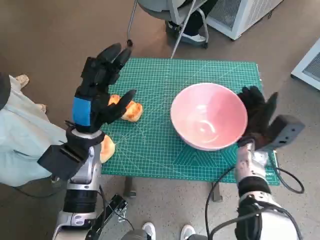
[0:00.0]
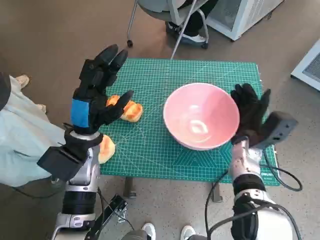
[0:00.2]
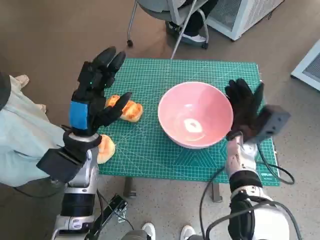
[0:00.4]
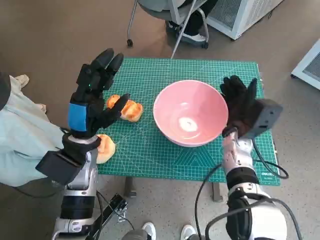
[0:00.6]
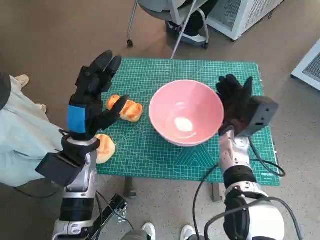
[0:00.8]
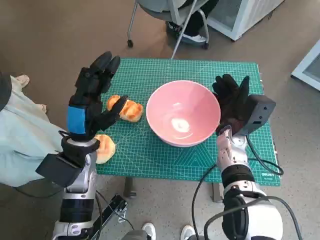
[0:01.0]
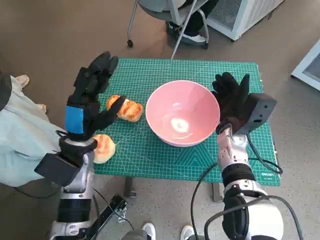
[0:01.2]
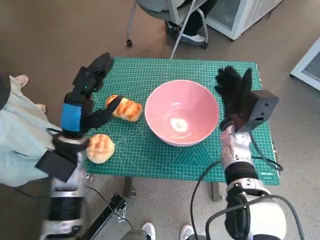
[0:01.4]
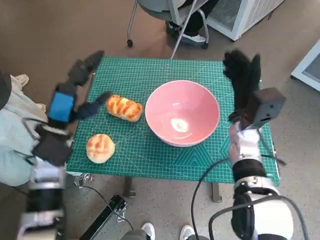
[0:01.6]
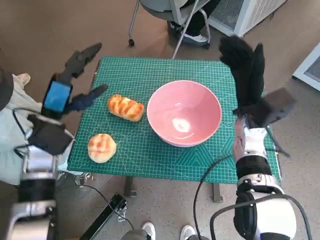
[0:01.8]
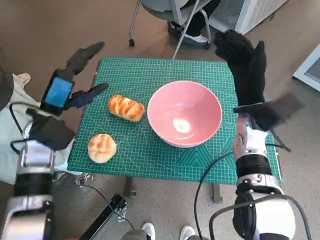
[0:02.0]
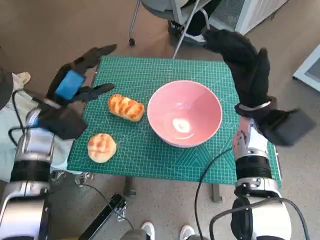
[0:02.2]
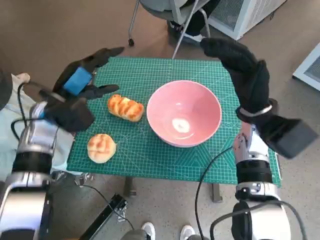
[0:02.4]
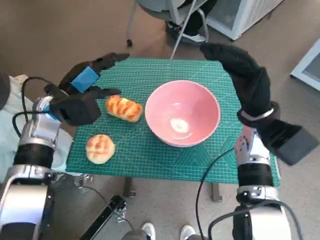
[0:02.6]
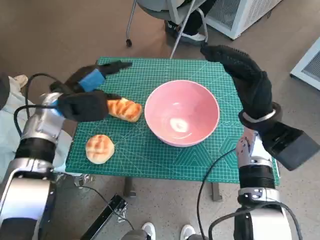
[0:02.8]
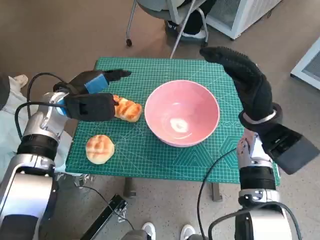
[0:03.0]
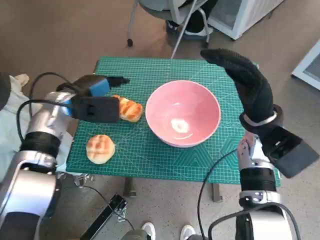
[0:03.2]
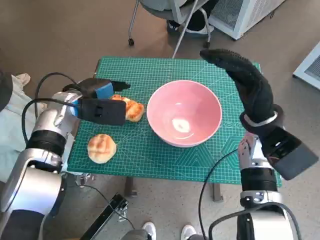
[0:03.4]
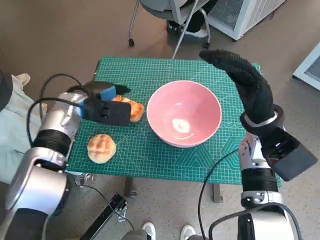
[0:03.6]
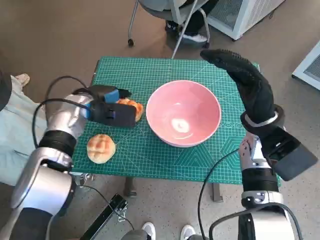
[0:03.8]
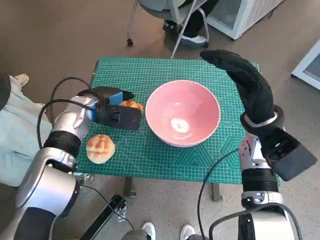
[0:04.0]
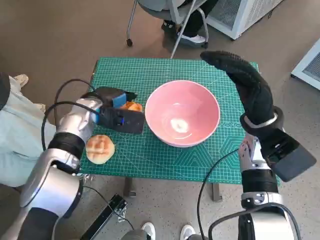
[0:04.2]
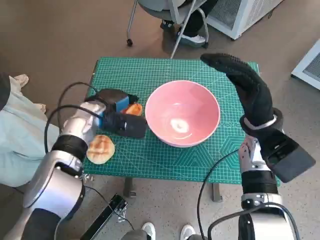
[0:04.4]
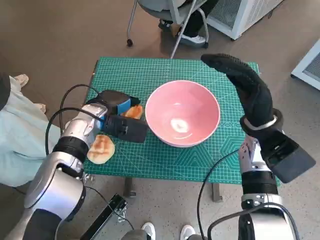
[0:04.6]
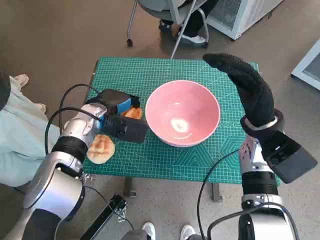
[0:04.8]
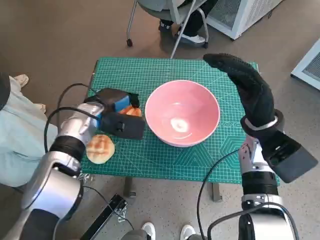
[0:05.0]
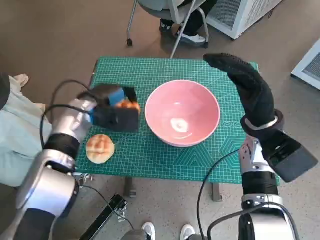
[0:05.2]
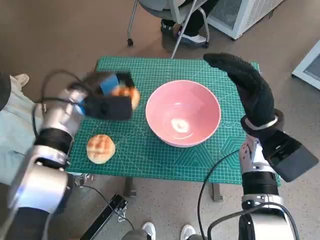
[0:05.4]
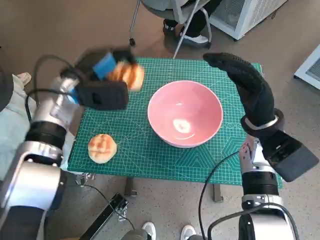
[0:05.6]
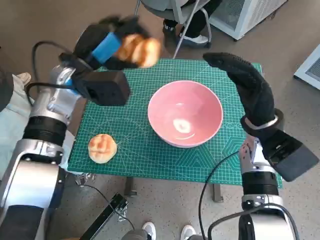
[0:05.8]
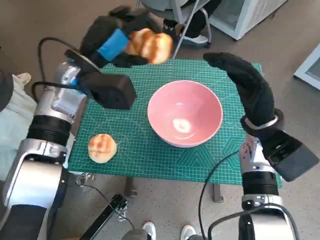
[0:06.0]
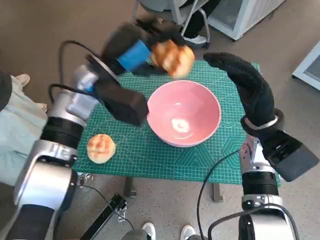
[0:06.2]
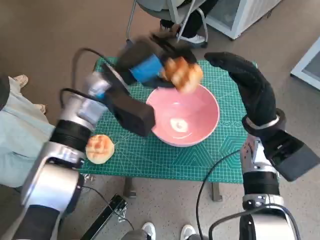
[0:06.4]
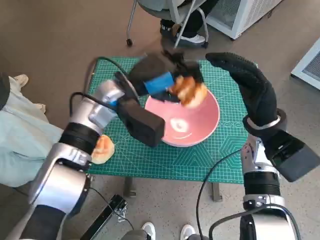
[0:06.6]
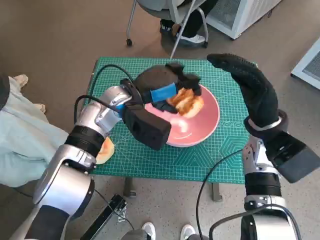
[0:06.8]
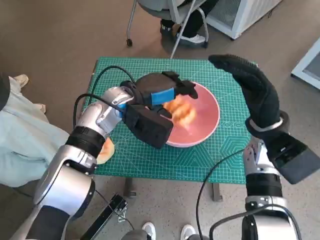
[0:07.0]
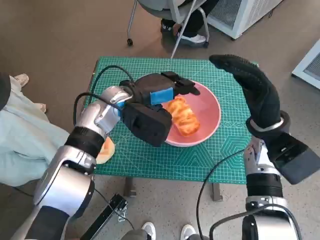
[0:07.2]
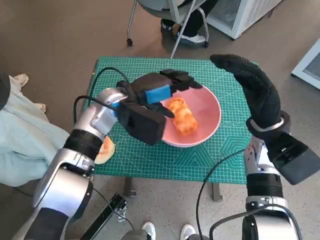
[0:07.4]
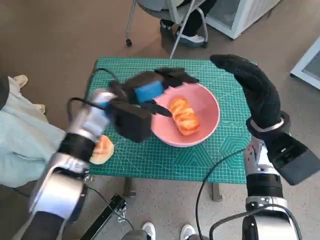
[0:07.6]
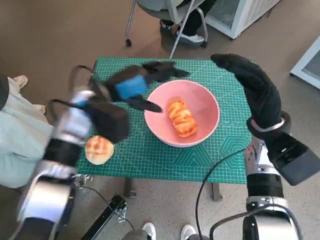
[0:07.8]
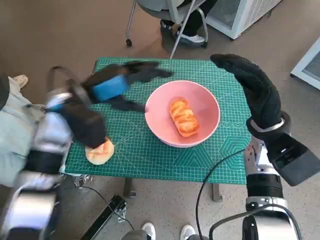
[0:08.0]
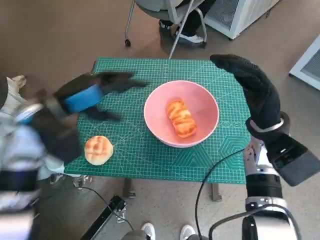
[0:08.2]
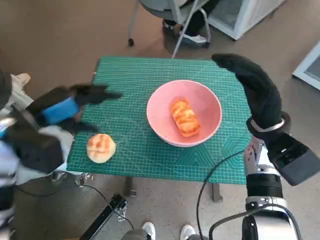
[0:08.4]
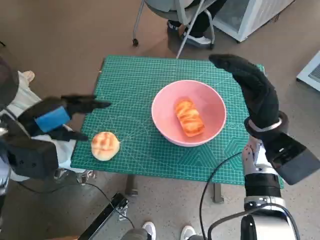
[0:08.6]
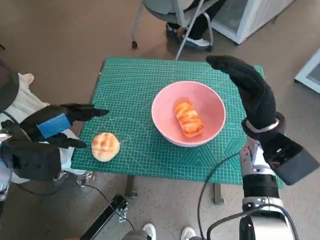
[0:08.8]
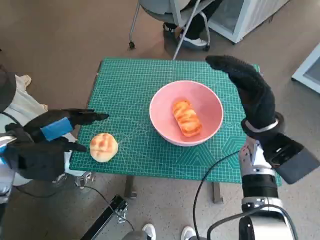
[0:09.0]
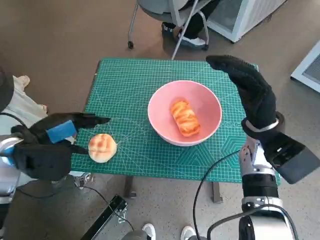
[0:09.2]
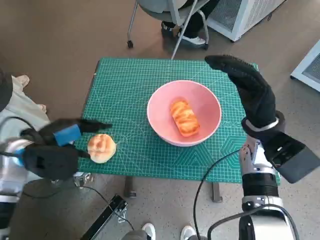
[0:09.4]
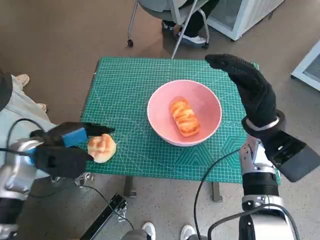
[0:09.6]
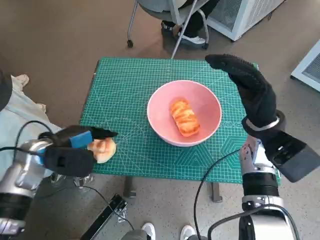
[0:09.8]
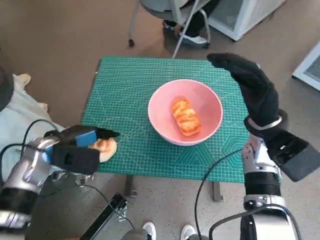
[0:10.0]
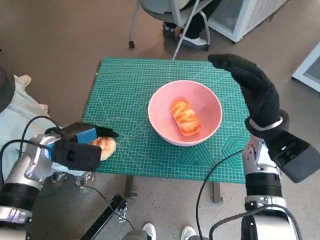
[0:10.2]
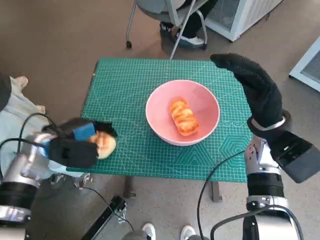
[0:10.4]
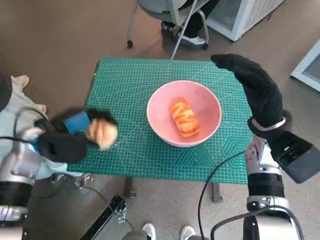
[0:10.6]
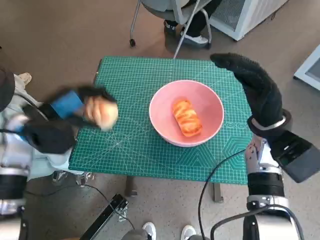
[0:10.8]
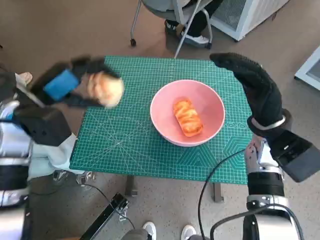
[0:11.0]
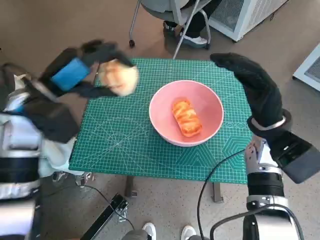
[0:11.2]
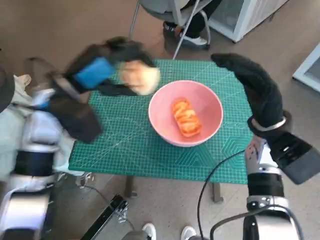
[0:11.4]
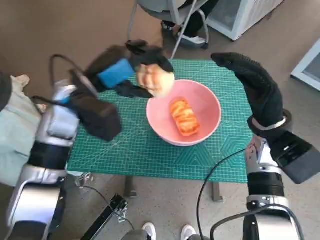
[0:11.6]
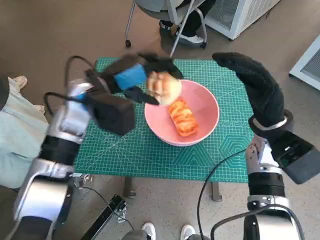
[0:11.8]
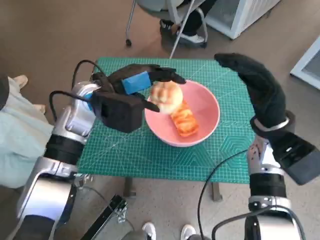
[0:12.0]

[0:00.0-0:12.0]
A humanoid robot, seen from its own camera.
Task of the whole recording: Push the bowl to the center of the table and put the bread into the bowl.
Step, 0:01.6 to 0:04.8: Grasp the long bread with left hand.
Step, 0:05.0 to 0:07.0: Place the long bread in pink bowl with left hand.
Step, 0:07.2 to 0:10.2: Grasp the round bread with left hand.
0:00.0 to 0:01.6: The right hand travels upward by about 5 cm, while the left hand travels to the left by approximately 5 cm.
0:01.6 to 0:03.0: The left hand heads forward, covering about 10 cm. Meanwhile the right hand shifts approximately 5 cm upward.
0:03.0 to 0:04.4: The left hand goes about 5 cm to the right.
0:04.4 to 0:06.0: The left hand is displaced upward by some 10 cm.
0:06.0 to 0:07.6: The left hand goes roughly 5 cm downward.
0:07.6 to 0:09.0: The left hand shifts some 20 cm to the left and backward.
0:09.0 to 0:10.4: The left hand goes approximately 5 cm downward.
0:10.4 to 0:12.0: The left hand goes approximately 15 cm to the right, upward and forward.

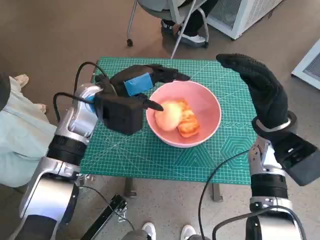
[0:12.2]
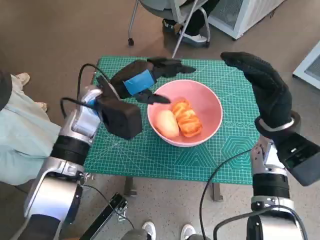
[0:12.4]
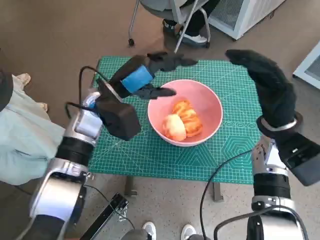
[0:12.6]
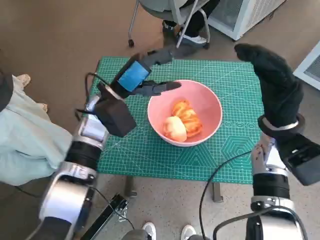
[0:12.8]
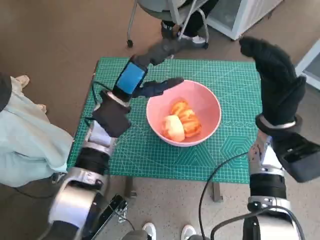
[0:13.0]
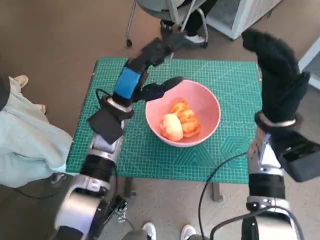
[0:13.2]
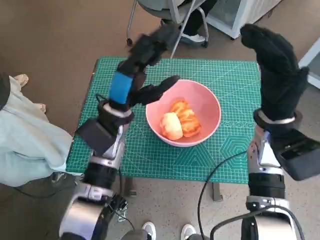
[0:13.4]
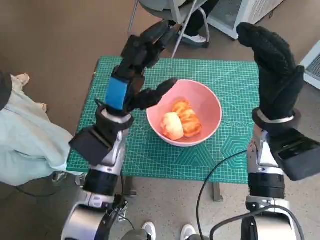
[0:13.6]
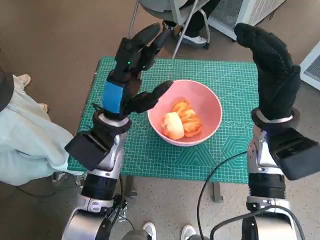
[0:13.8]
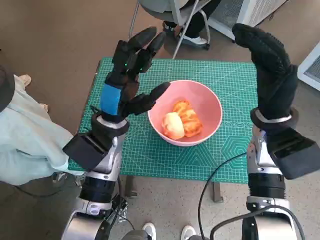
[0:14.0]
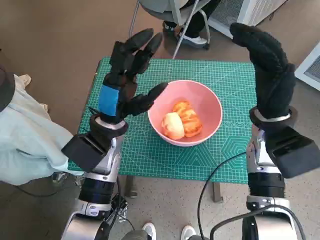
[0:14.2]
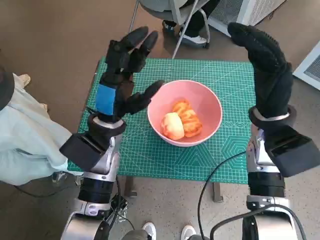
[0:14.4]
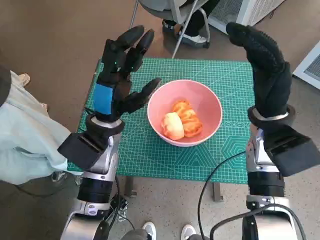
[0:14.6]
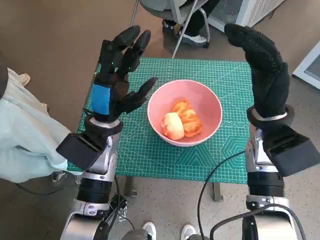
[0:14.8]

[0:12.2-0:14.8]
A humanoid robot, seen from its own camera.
Task of the whole recording: Push the bowl to the center of the table and put the bread into the bowl.
0:12.2 to 0:13.4: The left hand shifts by about 5 cm.
